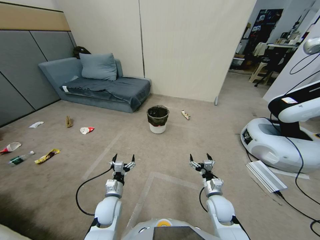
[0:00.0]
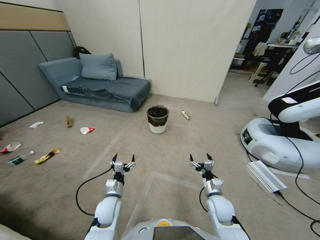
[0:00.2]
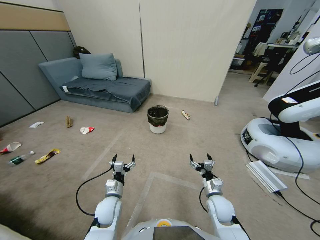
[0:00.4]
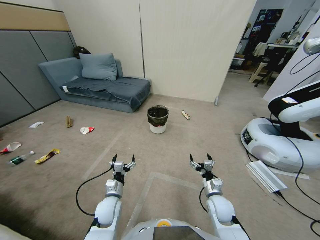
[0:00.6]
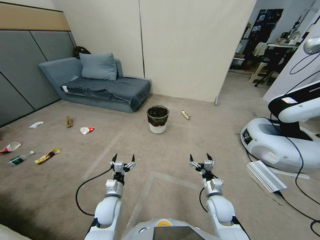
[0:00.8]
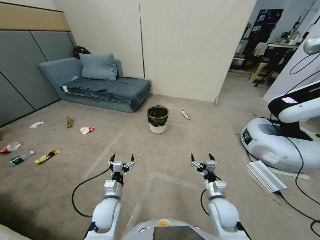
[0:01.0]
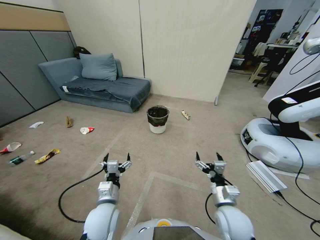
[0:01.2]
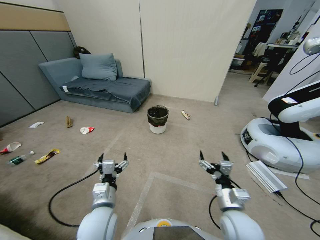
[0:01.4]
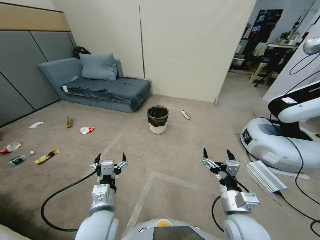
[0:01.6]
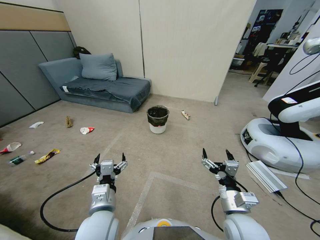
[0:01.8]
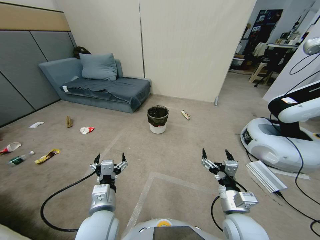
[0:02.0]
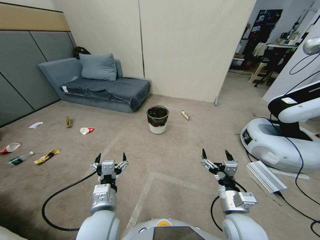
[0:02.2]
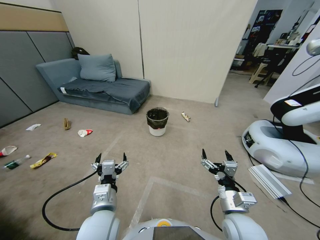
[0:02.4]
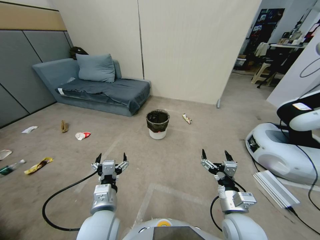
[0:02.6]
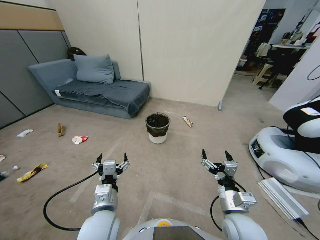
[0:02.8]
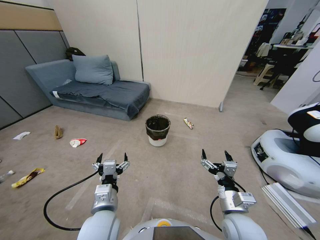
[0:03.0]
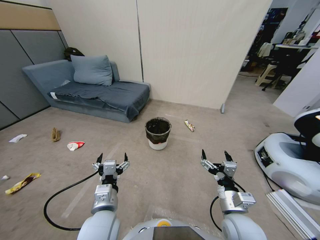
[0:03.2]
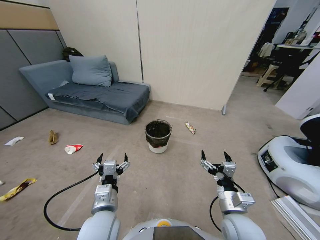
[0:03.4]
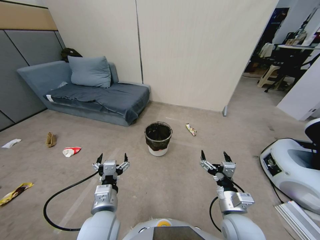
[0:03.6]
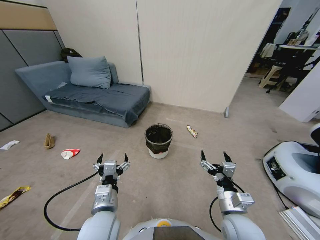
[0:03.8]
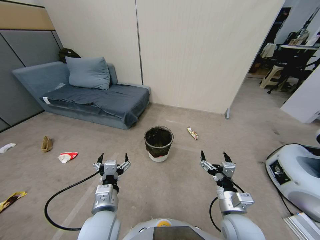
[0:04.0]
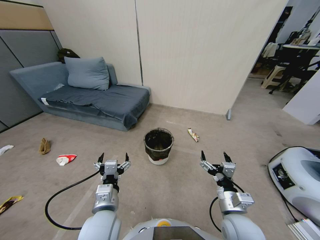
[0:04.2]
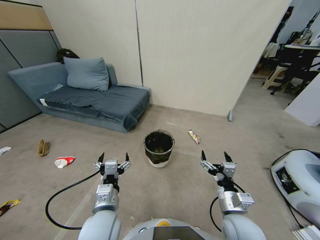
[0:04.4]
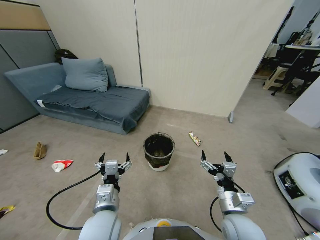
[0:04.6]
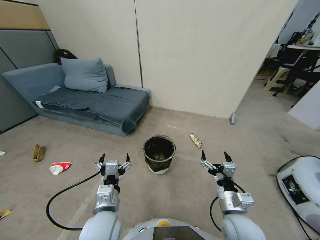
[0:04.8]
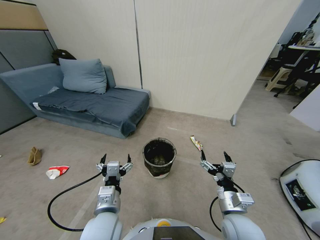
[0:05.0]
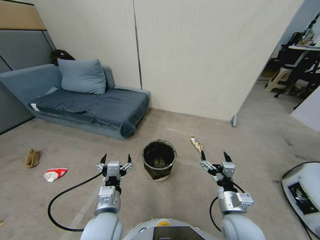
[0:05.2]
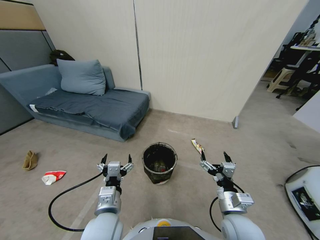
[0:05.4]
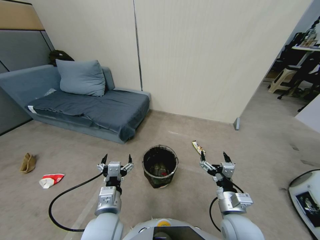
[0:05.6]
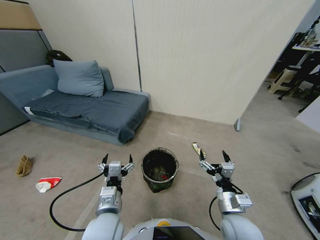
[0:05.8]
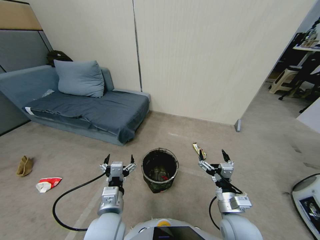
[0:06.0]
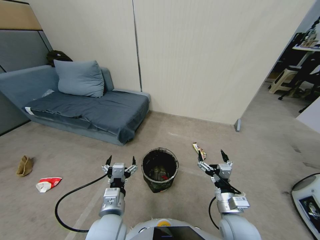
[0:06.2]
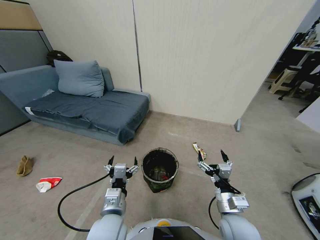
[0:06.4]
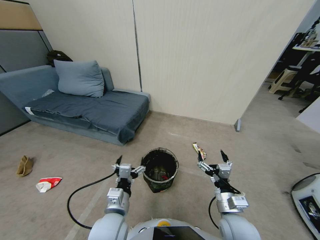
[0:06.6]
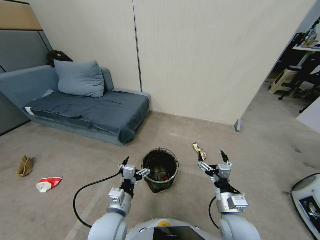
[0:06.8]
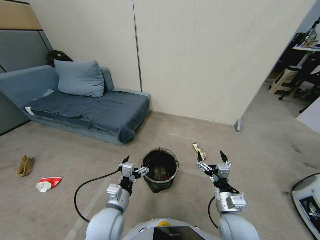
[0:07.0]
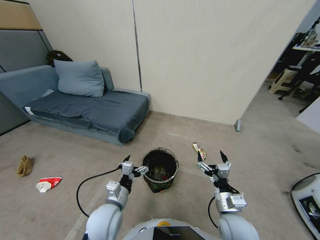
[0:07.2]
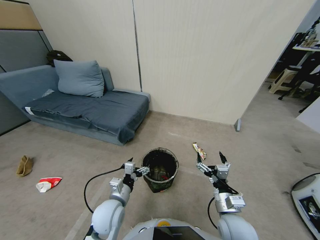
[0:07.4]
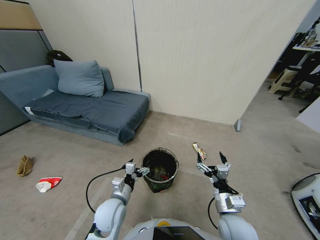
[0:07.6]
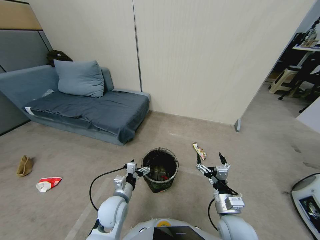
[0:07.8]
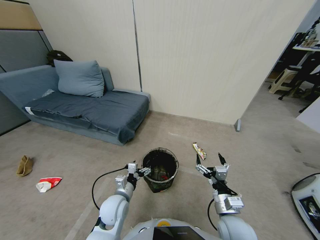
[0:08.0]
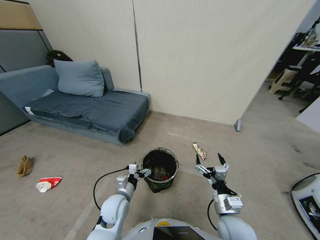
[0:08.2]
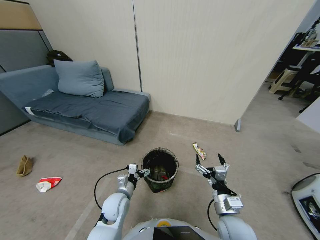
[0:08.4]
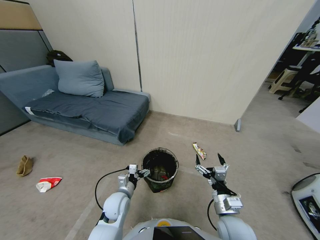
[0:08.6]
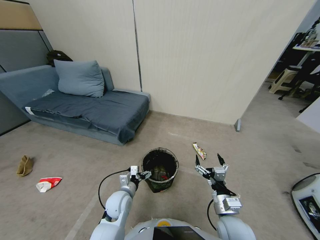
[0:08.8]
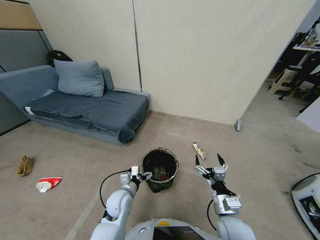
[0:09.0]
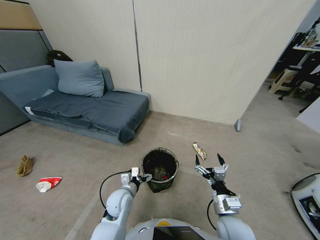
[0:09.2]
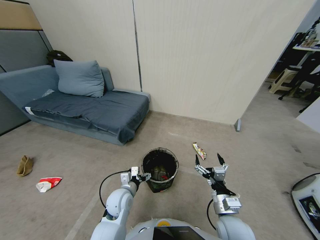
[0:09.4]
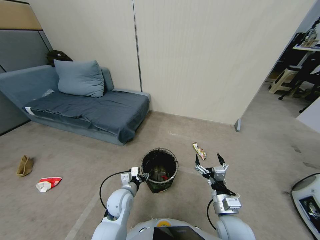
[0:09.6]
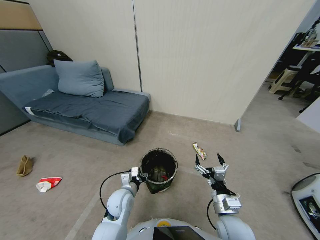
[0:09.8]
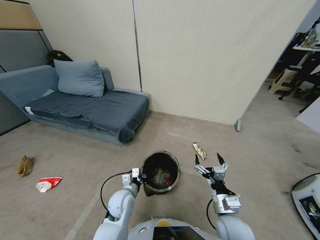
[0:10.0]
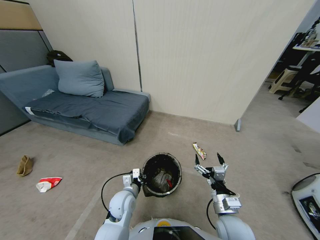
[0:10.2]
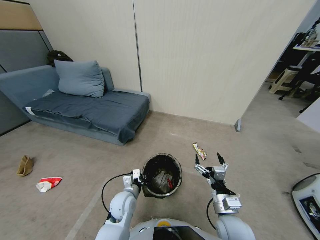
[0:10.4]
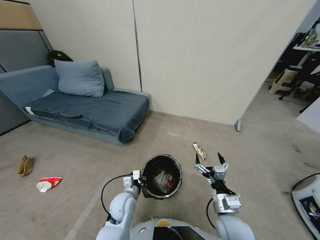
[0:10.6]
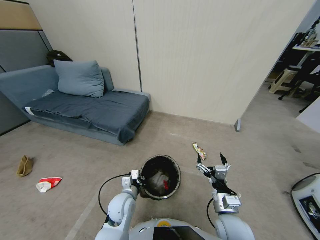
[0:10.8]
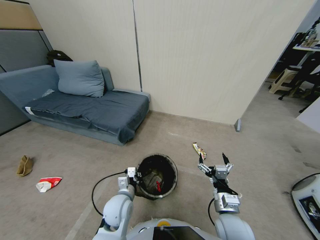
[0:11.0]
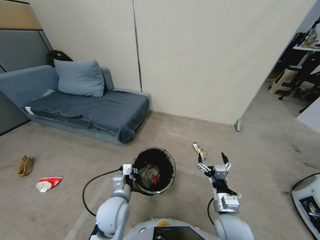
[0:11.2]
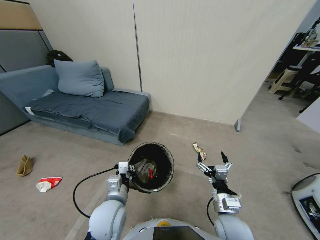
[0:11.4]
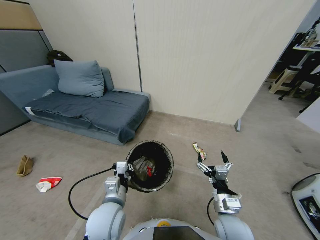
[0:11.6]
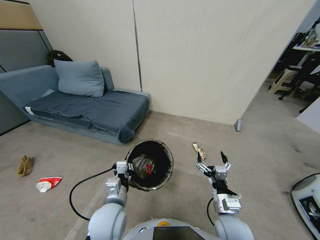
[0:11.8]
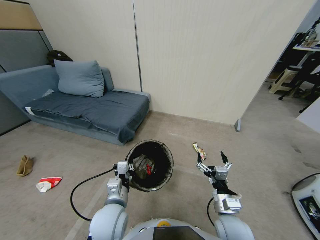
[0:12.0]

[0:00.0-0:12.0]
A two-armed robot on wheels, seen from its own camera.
Task of the whole recording: Pick up the trash bin, then pick up the garbage from the floor and place it into the trash bin.
0:06.0 to 0:07.6: The left gripper heads downward and forward, covering roughly 10 cm.
0:09.0 to 0:10.4: The left gripper closes.
0:10.4 to 0:12.0: The left gripper shifts approximately 10 cm upward and backward.

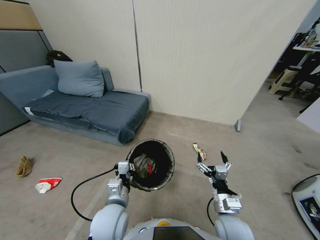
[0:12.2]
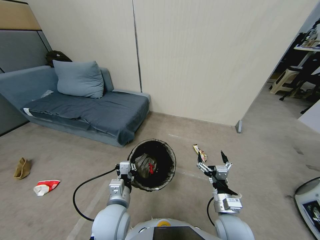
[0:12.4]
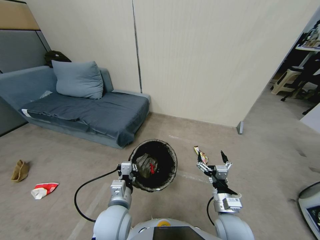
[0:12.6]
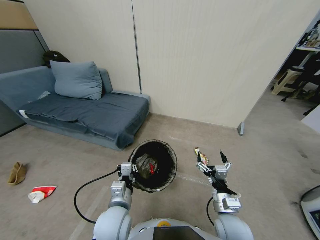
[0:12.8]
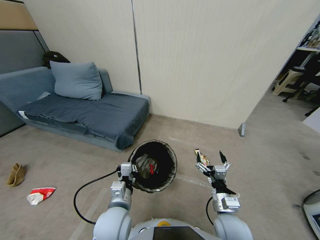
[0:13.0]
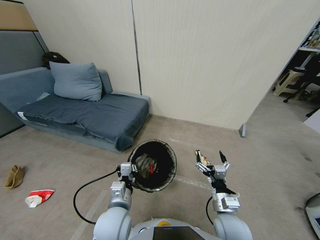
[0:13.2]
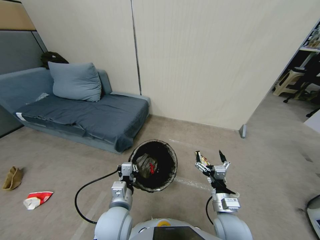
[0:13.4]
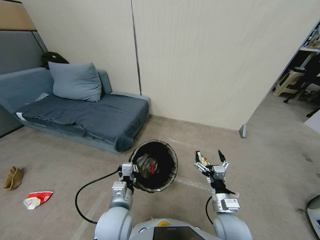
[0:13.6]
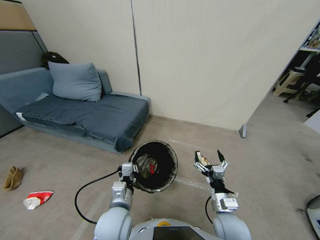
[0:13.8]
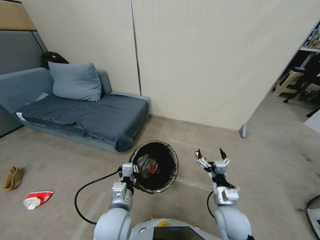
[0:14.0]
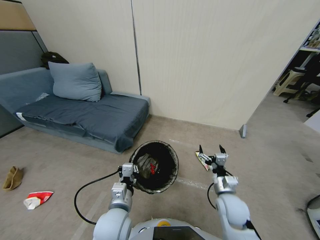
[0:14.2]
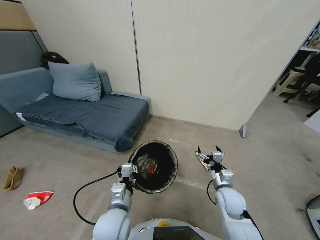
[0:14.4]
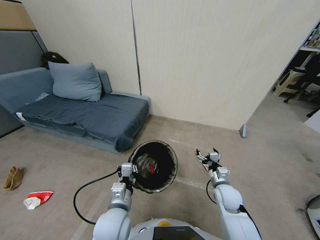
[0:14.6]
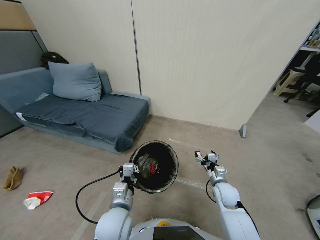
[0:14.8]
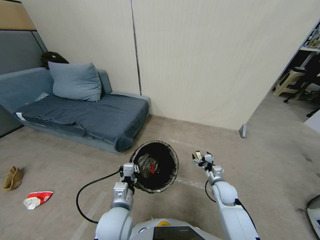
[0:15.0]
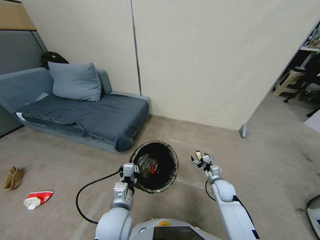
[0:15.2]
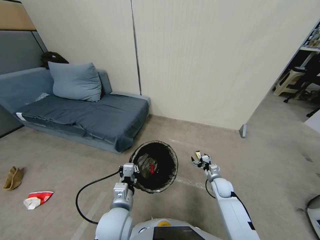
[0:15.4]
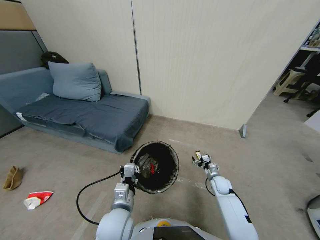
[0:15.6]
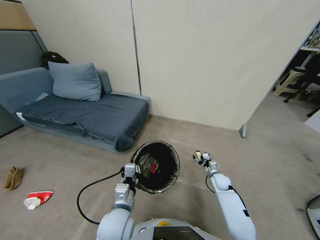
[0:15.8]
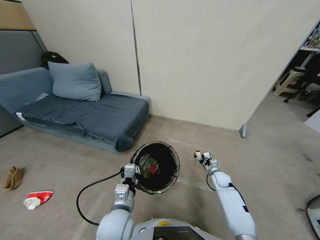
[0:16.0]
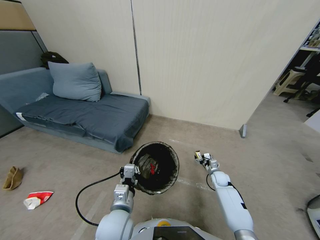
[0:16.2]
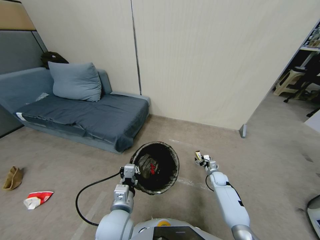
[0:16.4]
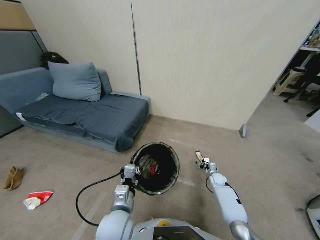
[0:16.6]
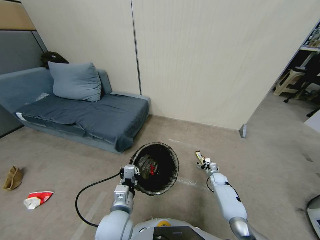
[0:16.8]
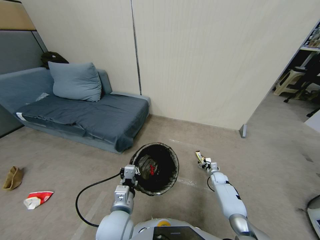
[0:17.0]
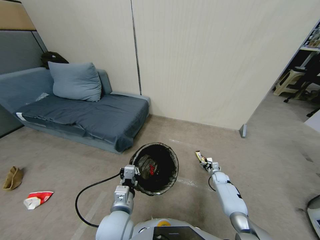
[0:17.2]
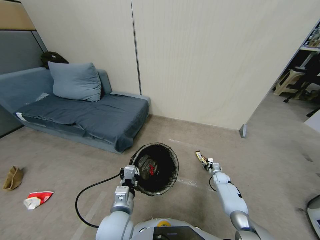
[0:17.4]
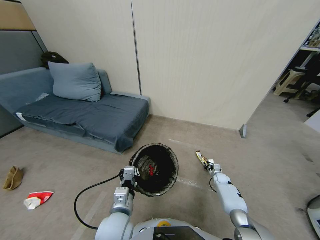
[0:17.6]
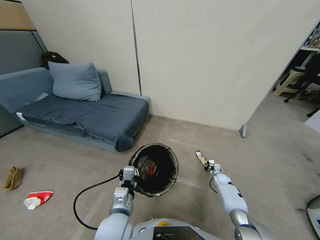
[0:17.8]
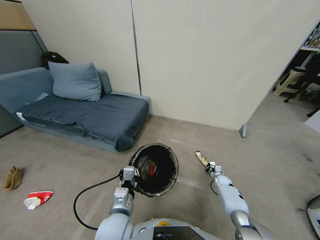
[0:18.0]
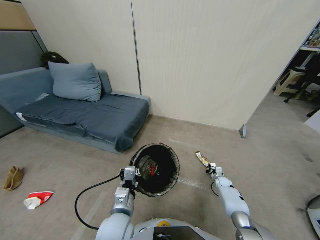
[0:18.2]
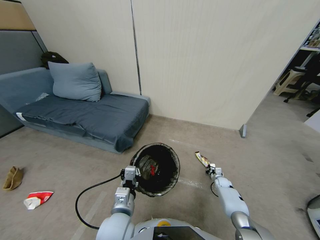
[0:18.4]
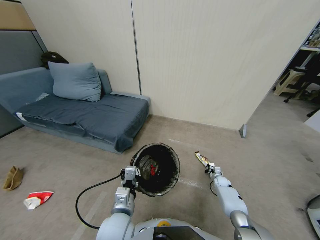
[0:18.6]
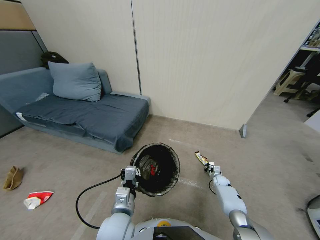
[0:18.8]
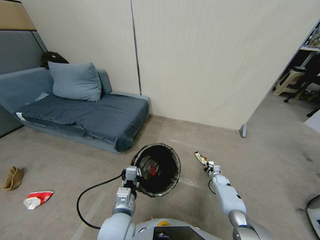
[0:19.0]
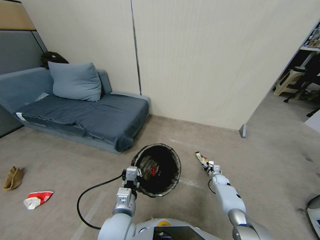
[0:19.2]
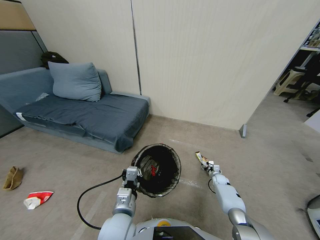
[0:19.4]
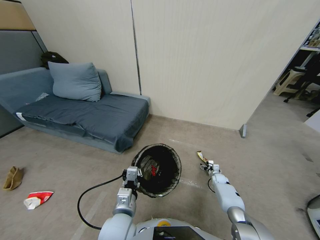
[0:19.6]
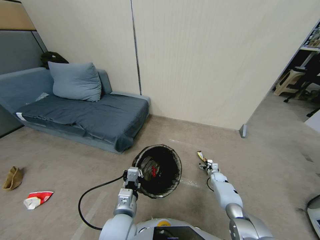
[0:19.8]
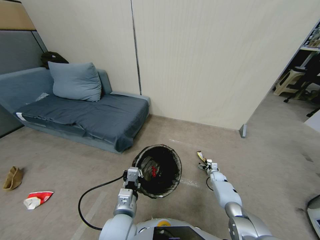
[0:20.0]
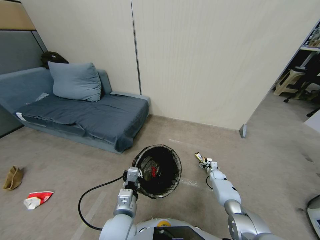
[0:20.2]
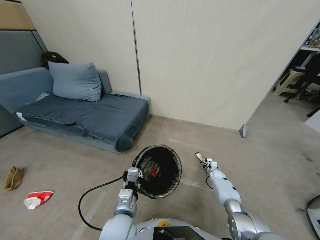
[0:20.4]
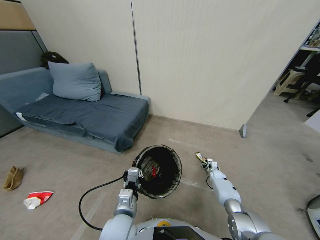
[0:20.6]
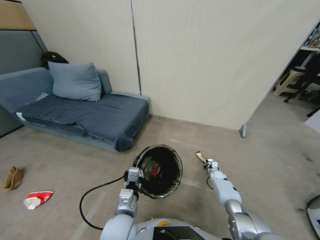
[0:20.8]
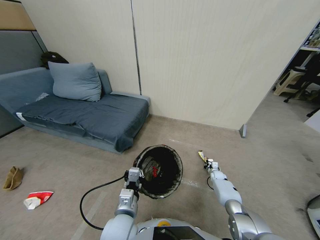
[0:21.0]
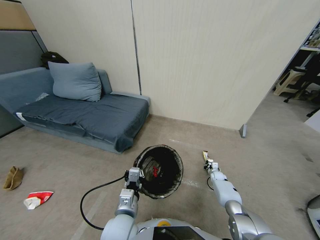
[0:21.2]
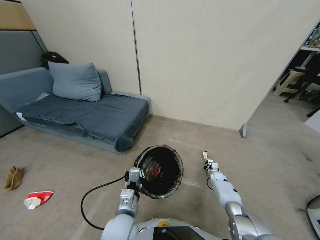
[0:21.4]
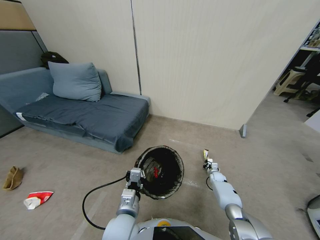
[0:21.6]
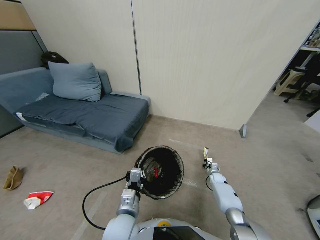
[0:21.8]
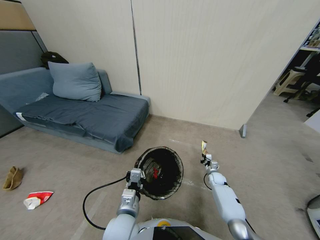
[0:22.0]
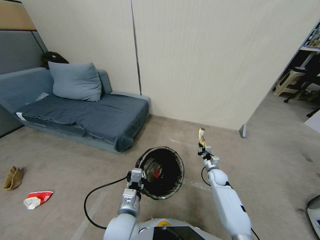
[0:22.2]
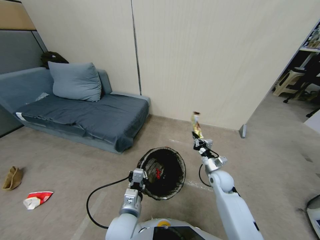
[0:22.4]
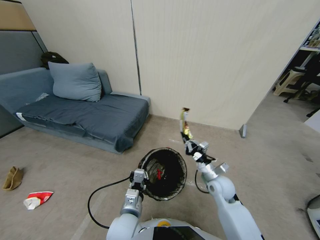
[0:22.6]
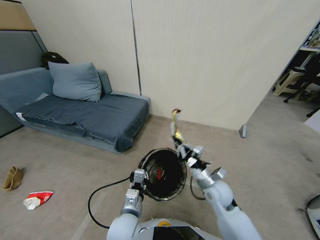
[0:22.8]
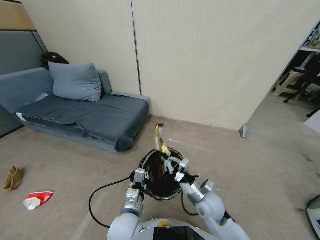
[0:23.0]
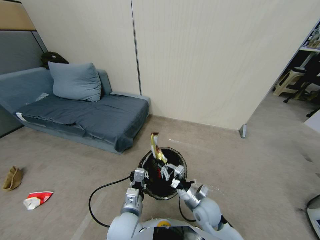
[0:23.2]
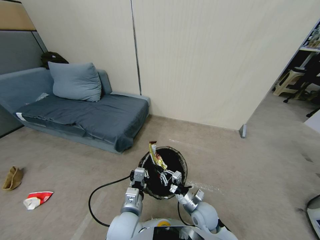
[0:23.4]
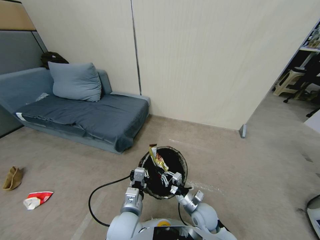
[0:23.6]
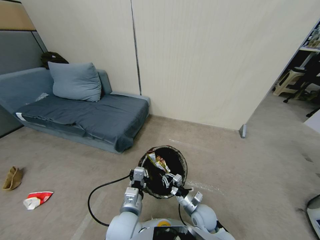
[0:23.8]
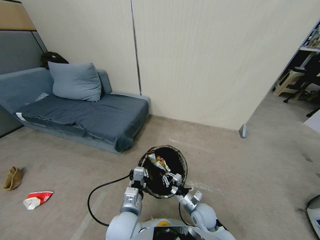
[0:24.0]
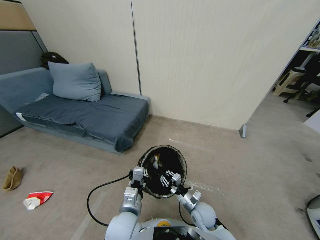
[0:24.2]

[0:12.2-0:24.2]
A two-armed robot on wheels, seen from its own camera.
Task of the whole recording: Pick up the trash bin, then pick up the garbage from the floor and place it into the trash bin.
0:12.2 to 0:13.8: The grippers stay close to where they were, moving slightly.
0:13.8 to 0:15.2: The right gripper is displaced forward, downward and to the right by some 20 cm.
0:15.2 to 0:16.6: The right gripper goes some 15 cm downward, forward and to the right.
0:16.6 to 0:18.2: The right gripper moves some 5 cm, and closes.
0:18.2 to 0:19.8: The right gripper opens.
0:19.8 to 0:21.2: The right gripper closes up.
0:21.2 to 0:22.6: The right gripper heads upward, to the left and backward, covering about 35 cm.
0:22.6 to 0:24.2: The right gripper shifts approximately 15 cm downward and backward, and opens its fingers.
